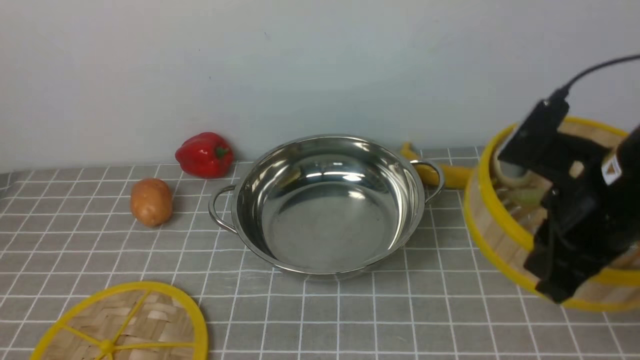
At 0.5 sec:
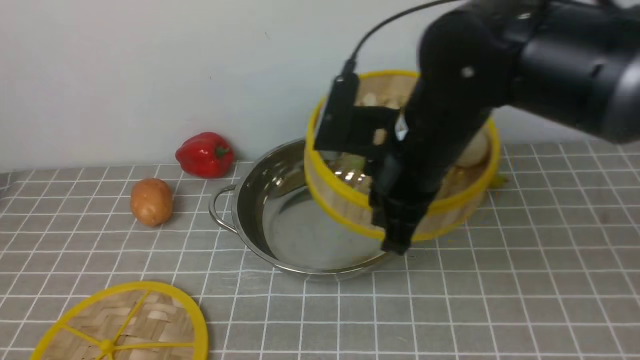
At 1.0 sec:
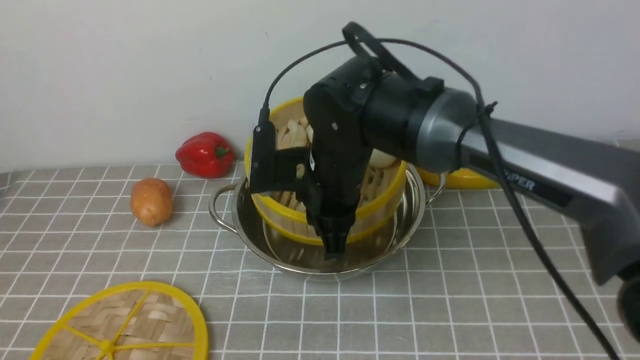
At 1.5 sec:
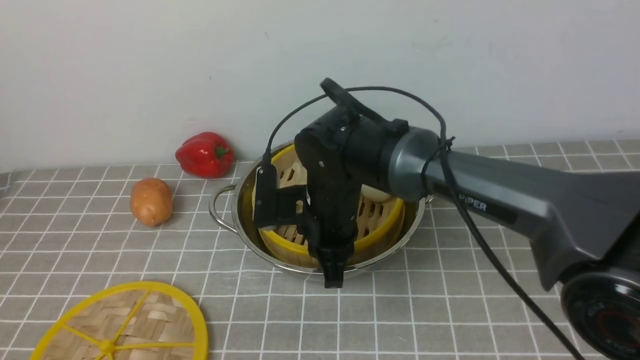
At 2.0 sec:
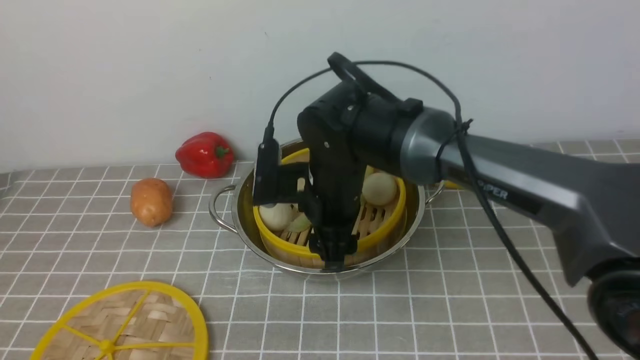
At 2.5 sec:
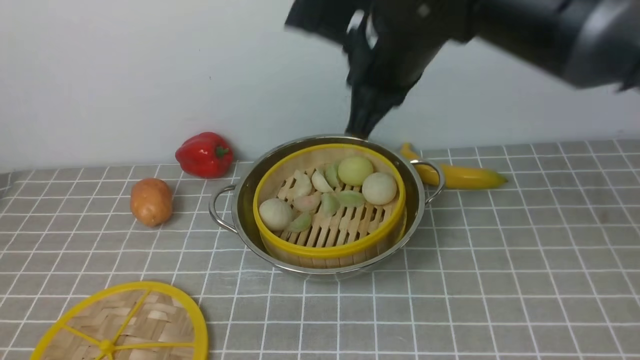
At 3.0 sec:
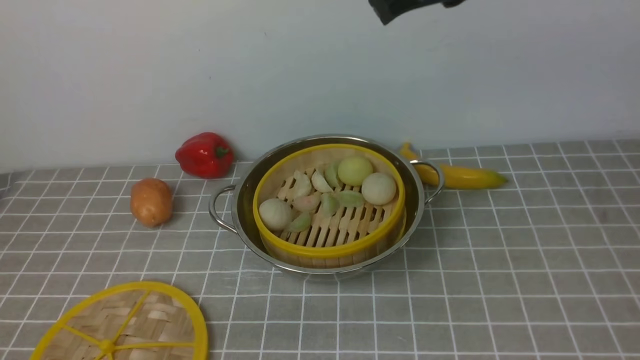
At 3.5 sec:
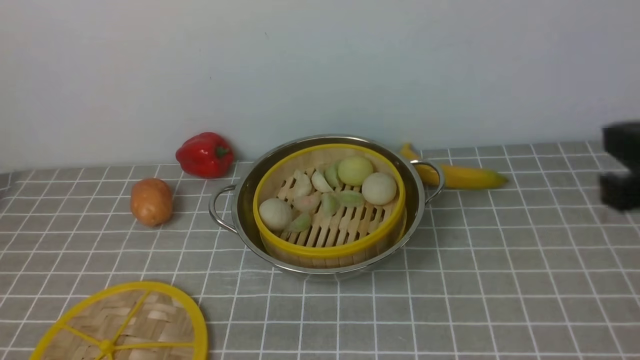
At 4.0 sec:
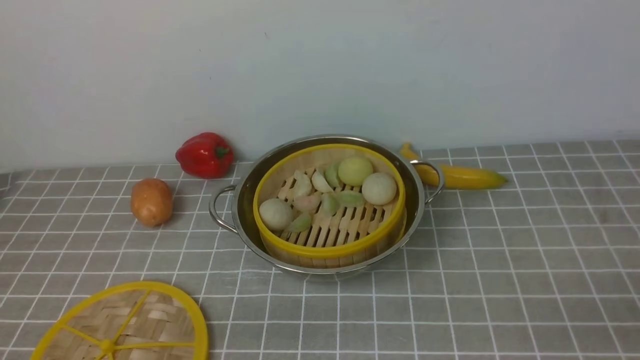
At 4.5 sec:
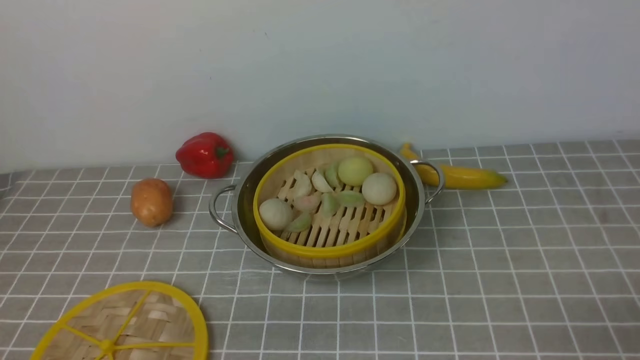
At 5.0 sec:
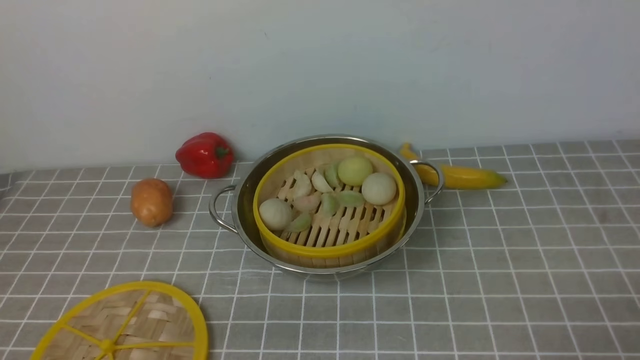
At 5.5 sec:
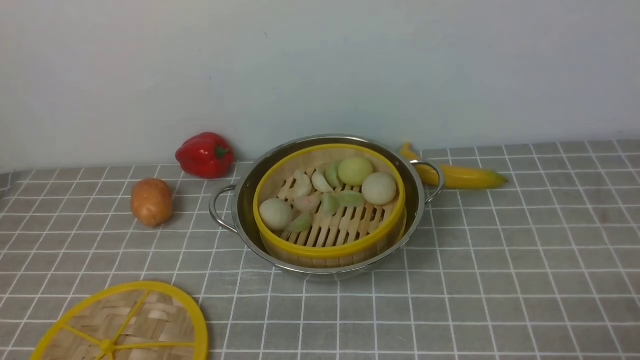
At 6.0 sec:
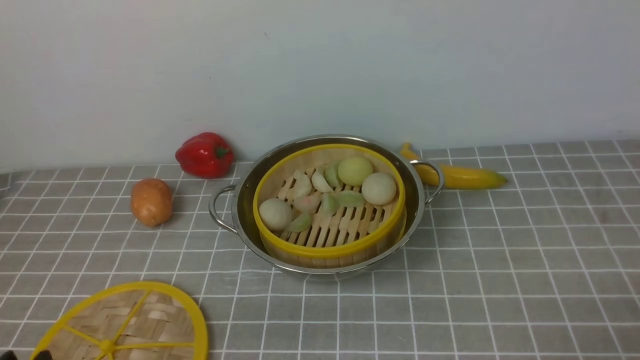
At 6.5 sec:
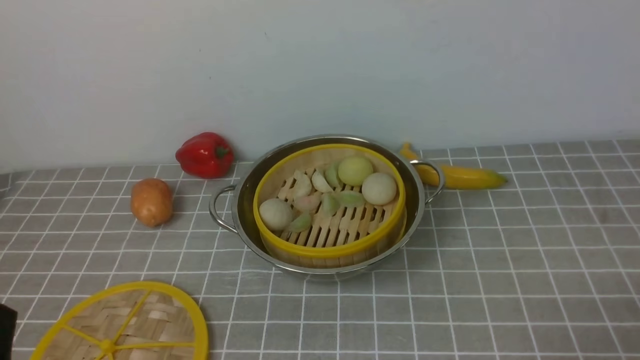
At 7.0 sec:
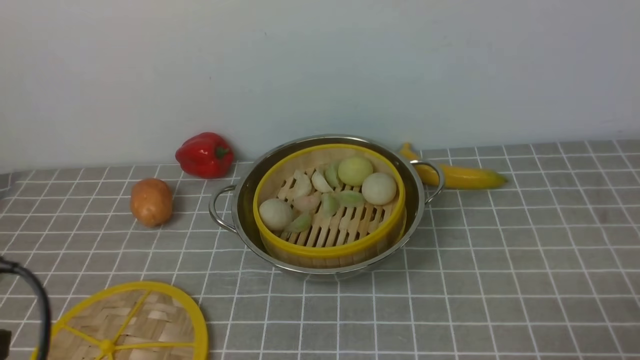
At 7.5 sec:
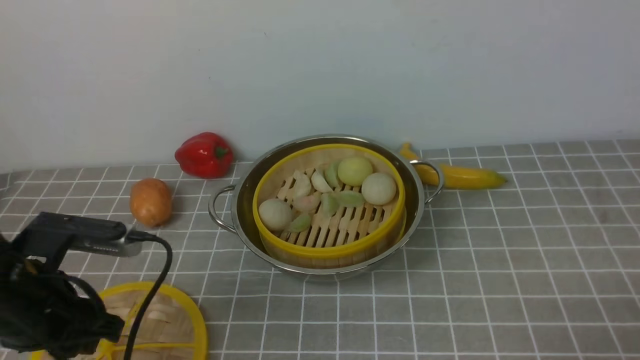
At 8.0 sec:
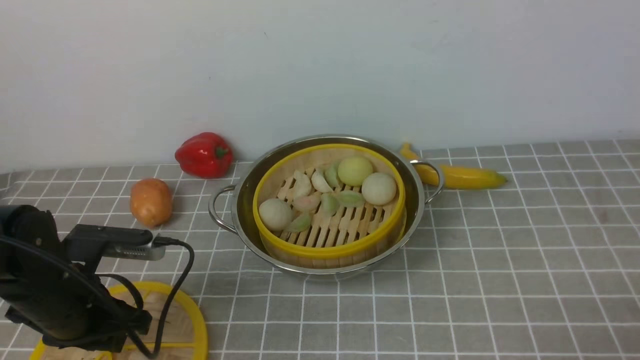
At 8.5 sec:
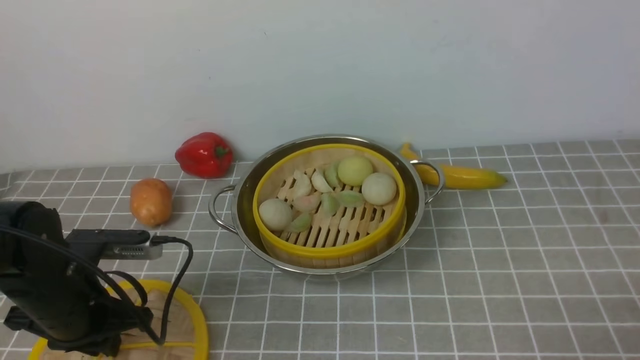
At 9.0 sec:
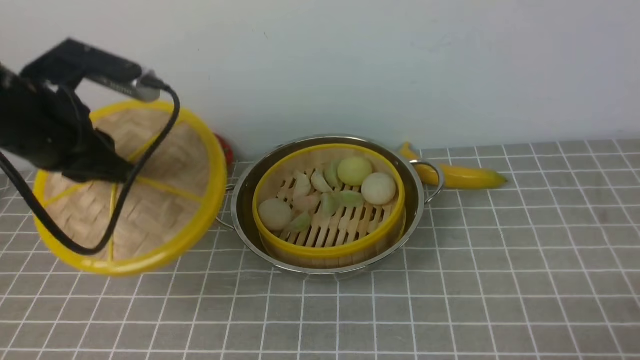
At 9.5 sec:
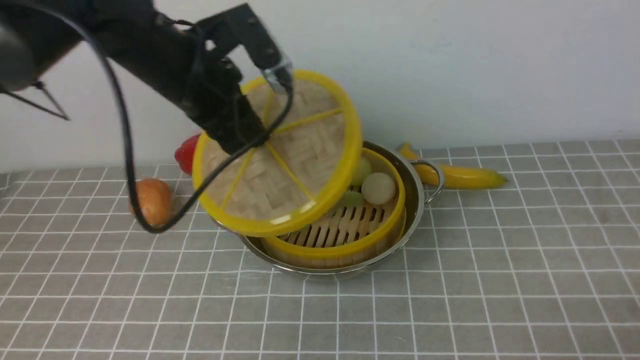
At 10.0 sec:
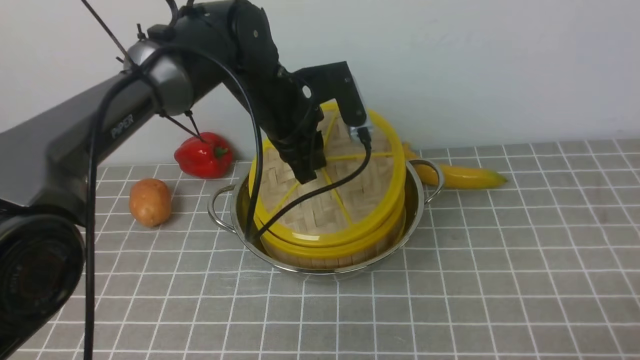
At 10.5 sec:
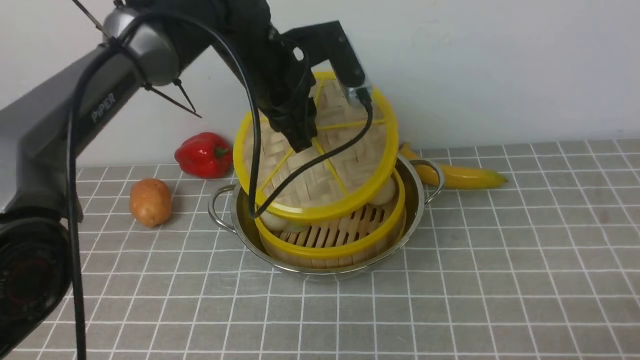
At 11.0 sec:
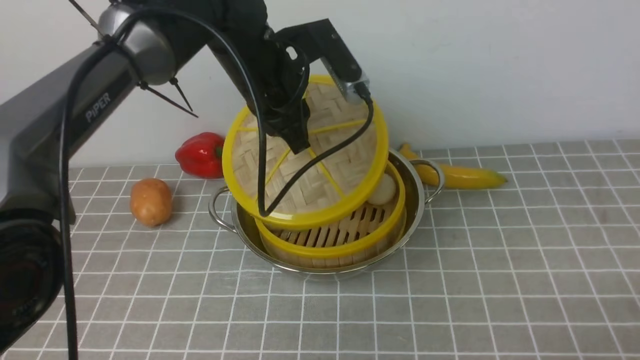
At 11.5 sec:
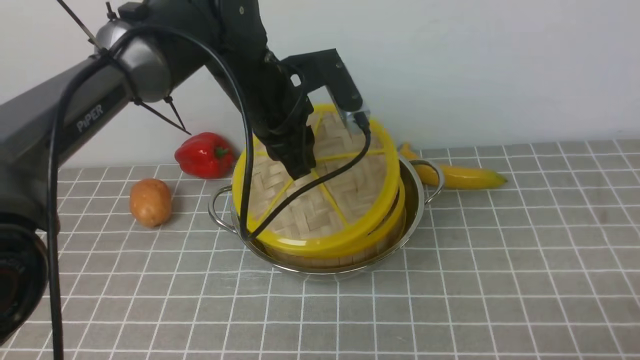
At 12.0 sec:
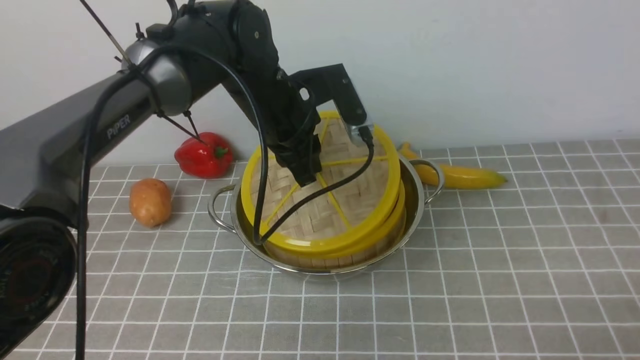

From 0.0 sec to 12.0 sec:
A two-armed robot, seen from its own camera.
Task of the whole recording: place the steamer in the pot on the grey tablecloth, and put the lid on the steamer.
Step, from 0.0 sec to 2.0 sec: use the right arm to put the steamer into the iron steamer pot in the middle.
Step, from 2.5 sec to 8.5 sec: use the left arm to lift the lid of the steamer.
From 0.0 sec to 2.0 sec: The right gripper travels to the left and forward by roughly 20 cm, and opens.
From 2.0 sec to 4.0 sec: The right gripper travels to the right and backward by roughly 40 cm, and closes up.
From 6.0 sec to 8.0 sec: The left gripper is displaced forward by some 20 cm.
From 8.0 sec to 10.0 sec: The left gripper is displaced to the right, forward and upward by roughly 30 cm, and closes its fingers.
From 10.0 sec to 12.0 sec: The grippers stay close to where they were, moving slightly.

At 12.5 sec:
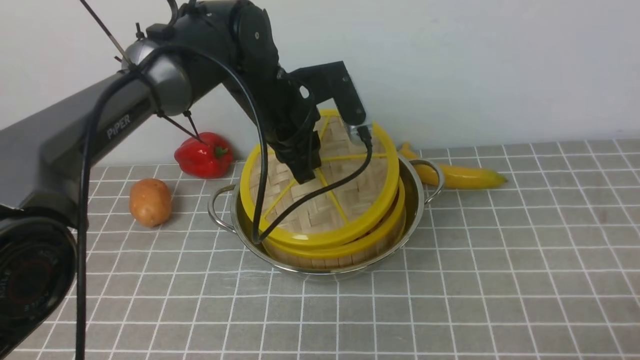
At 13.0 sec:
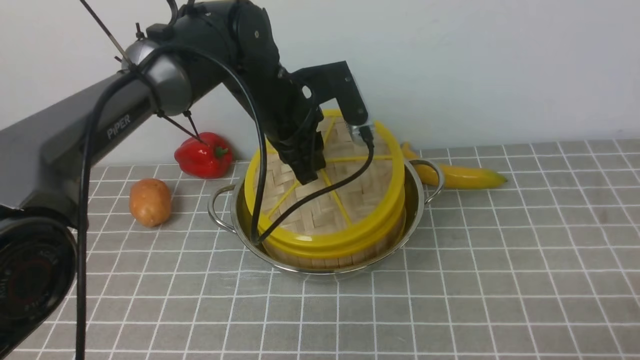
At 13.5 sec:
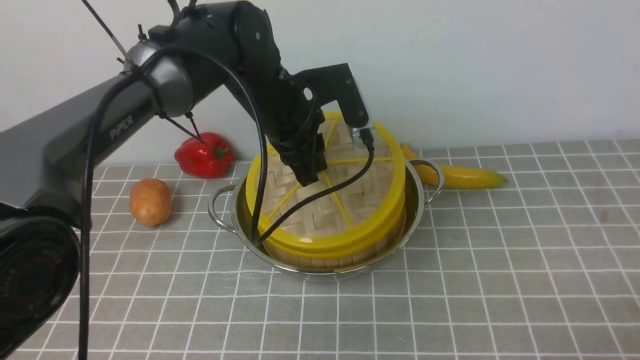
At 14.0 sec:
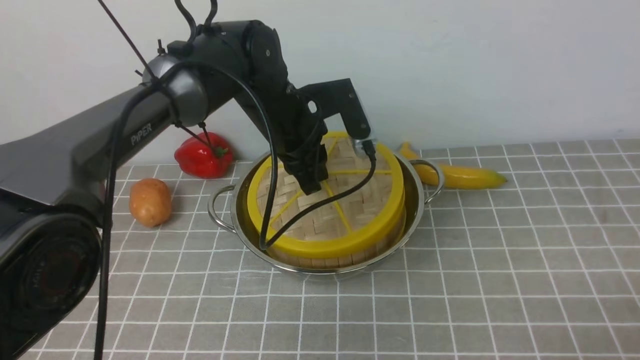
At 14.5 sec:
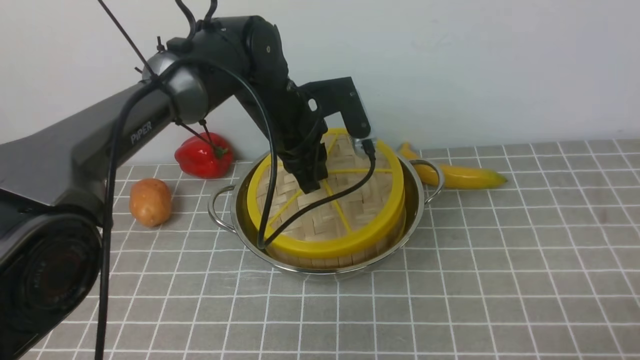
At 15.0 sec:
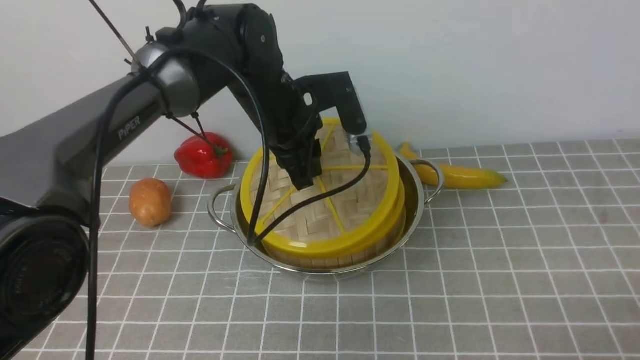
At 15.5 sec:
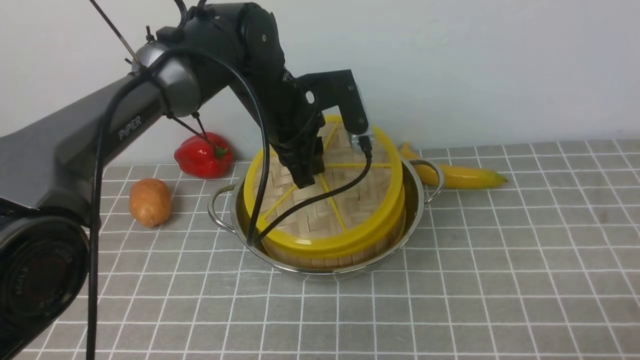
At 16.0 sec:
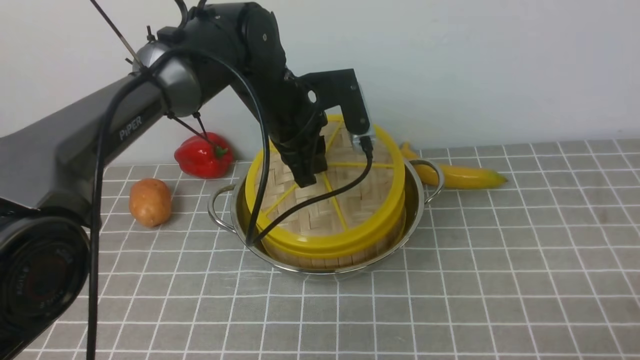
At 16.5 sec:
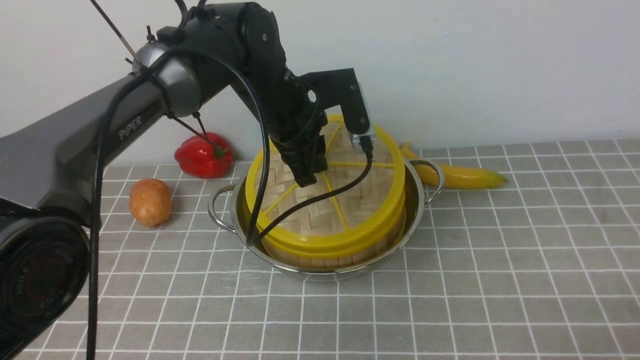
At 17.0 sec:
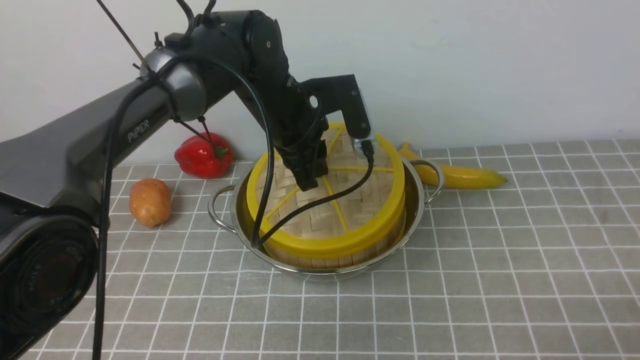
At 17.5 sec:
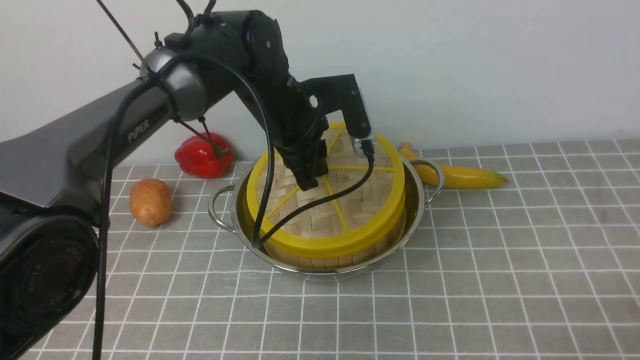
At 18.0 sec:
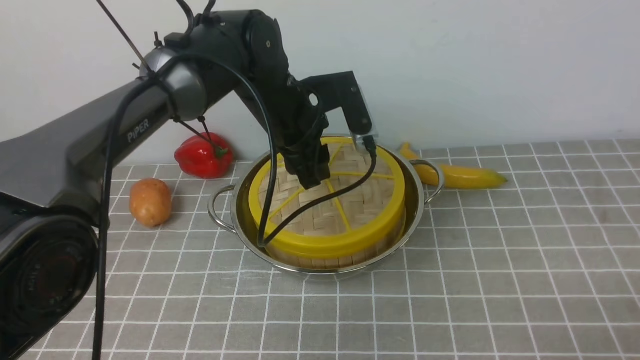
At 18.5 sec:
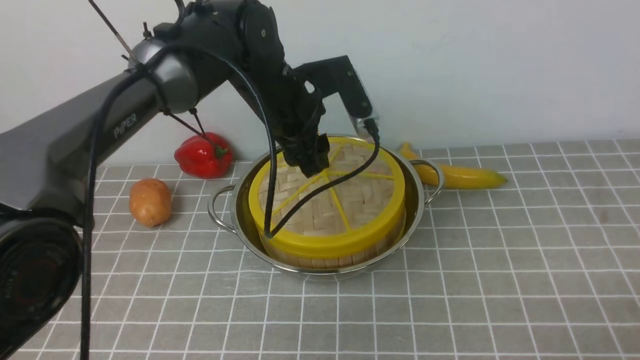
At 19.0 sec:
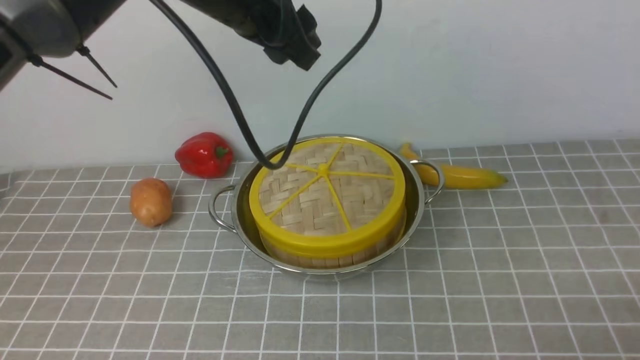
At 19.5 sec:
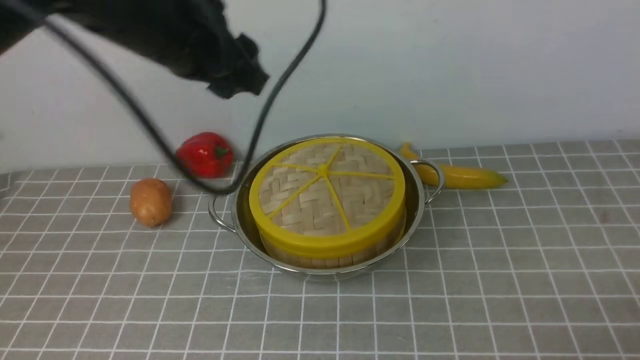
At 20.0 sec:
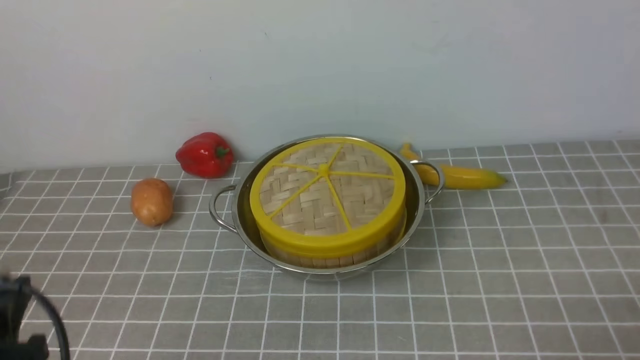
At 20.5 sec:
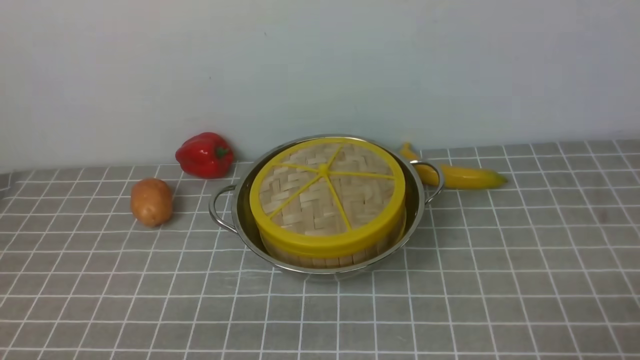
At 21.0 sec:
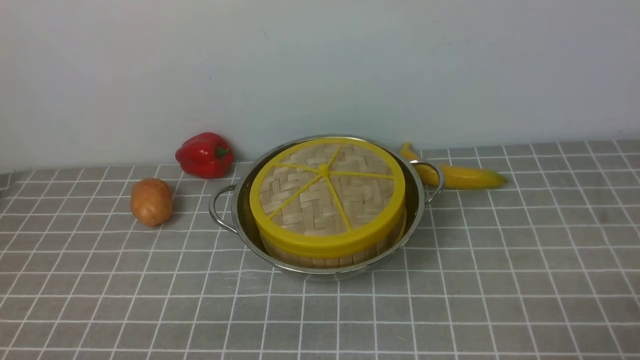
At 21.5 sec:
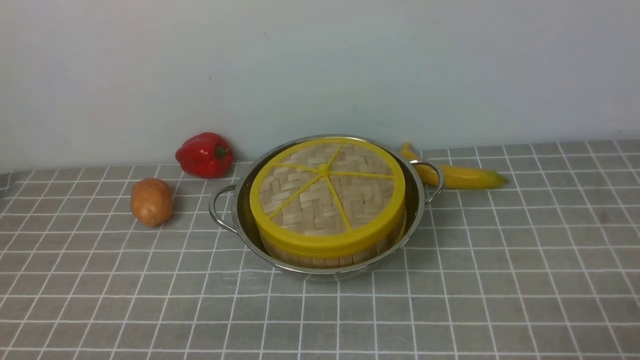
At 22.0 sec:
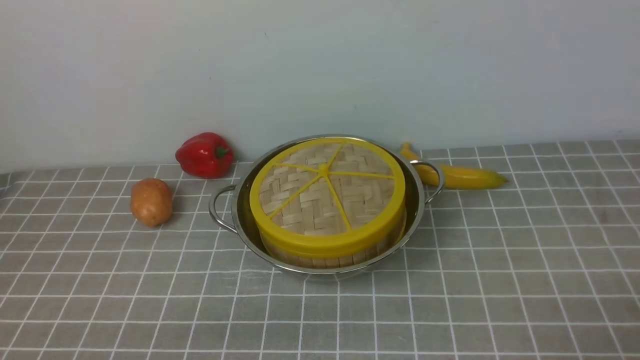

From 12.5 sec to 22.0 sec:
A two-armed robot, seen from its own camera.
Task of the whole recording: place the steamer in the pot on the grey tablecloth, and put the lid on the steamer.
Step, from 12.5 sec to 18.5 sec: use the left arm to place the steamer lid on the steamer.
From 12.5 sec to 16.5 sec: The grippers move only a little.
From 16.5 sec to 18.0 sec: The left gripper opens up.
From 18.0 sec to 20.0 sec: The left gripper is displaced backward and to the left by approximately 40 cm.
From 20.0 sec to 22.0 sec: The left gripper travels downward and backward by approximately 10 cm.
